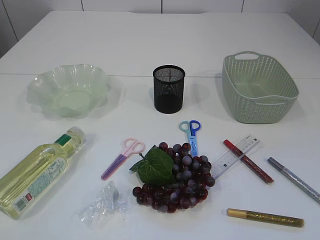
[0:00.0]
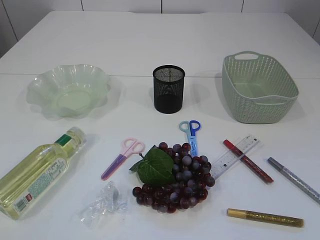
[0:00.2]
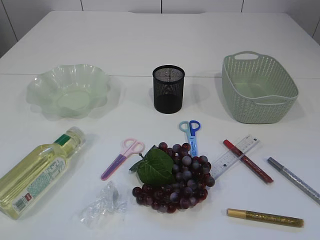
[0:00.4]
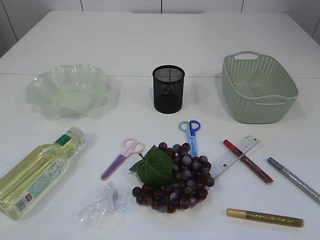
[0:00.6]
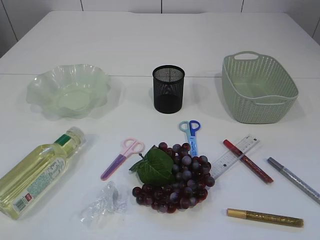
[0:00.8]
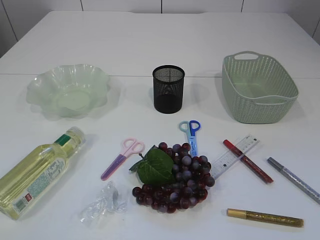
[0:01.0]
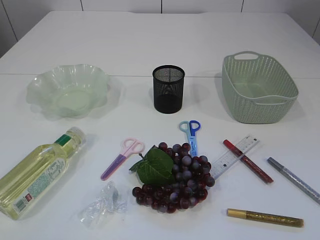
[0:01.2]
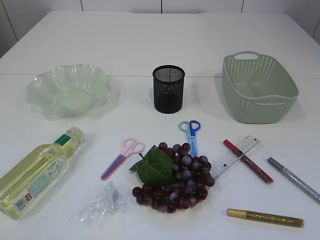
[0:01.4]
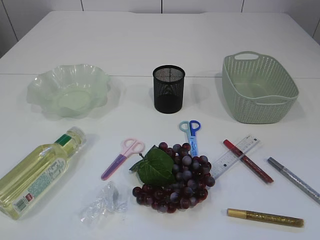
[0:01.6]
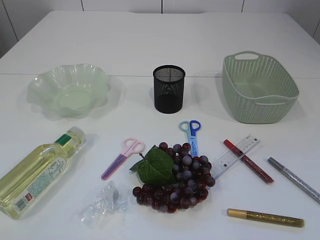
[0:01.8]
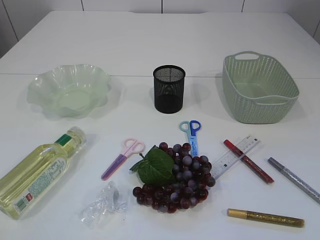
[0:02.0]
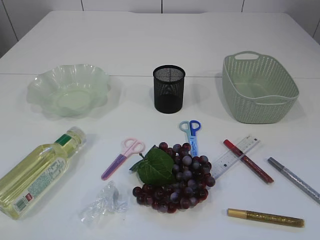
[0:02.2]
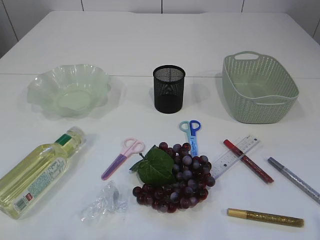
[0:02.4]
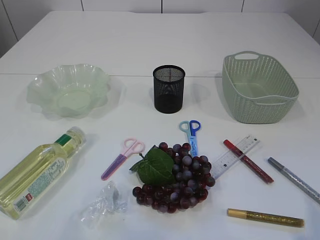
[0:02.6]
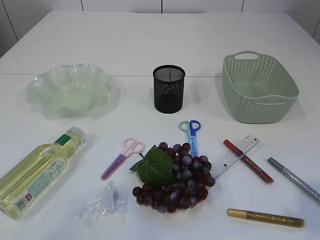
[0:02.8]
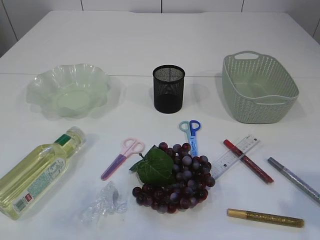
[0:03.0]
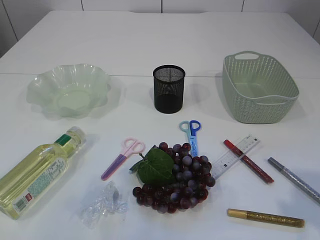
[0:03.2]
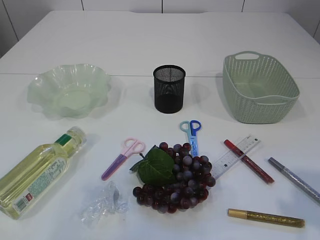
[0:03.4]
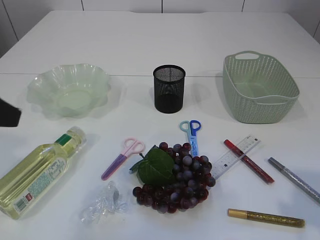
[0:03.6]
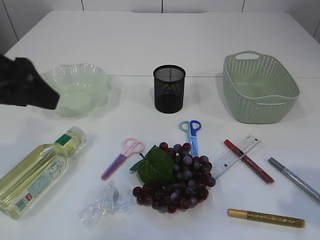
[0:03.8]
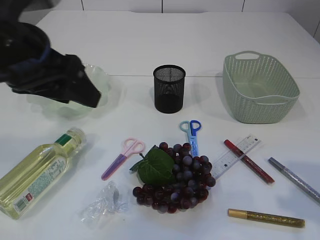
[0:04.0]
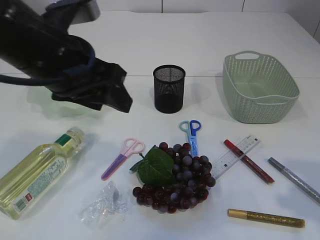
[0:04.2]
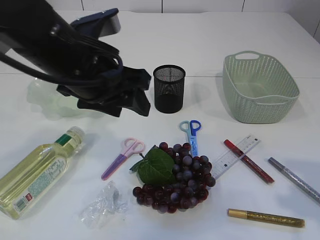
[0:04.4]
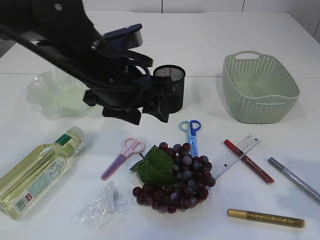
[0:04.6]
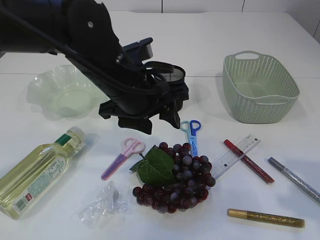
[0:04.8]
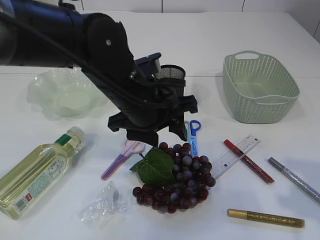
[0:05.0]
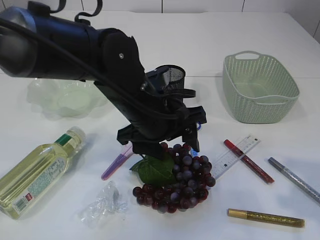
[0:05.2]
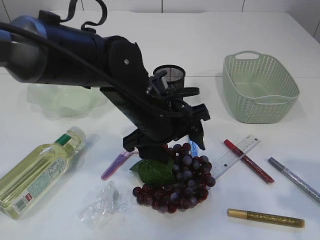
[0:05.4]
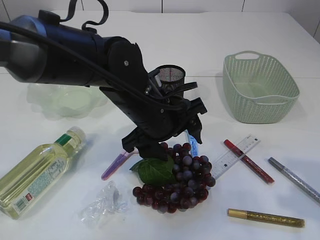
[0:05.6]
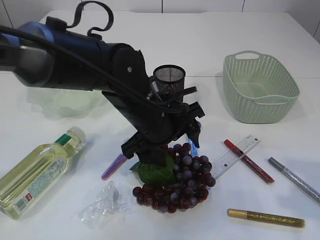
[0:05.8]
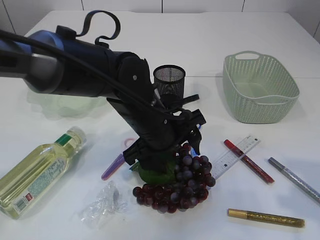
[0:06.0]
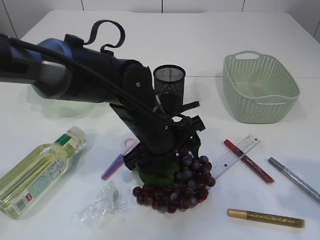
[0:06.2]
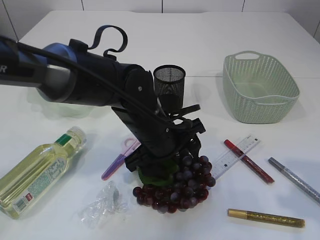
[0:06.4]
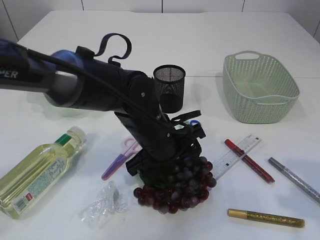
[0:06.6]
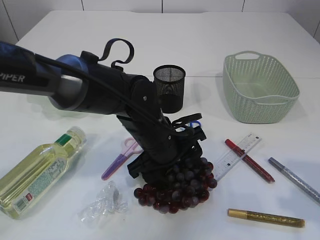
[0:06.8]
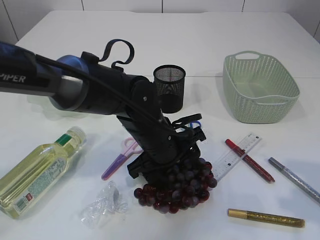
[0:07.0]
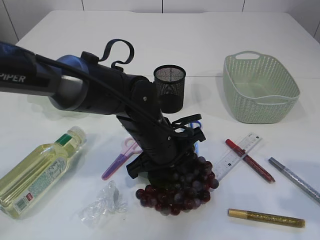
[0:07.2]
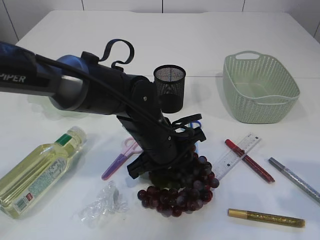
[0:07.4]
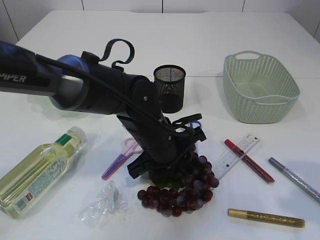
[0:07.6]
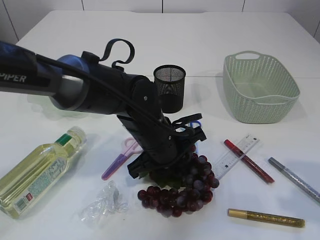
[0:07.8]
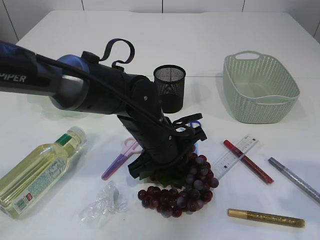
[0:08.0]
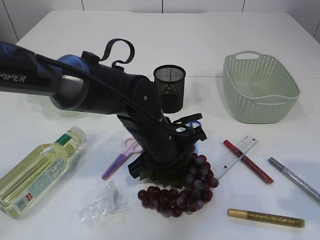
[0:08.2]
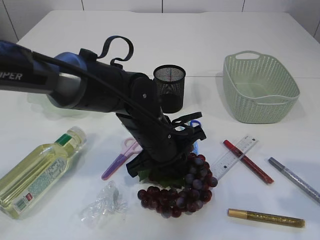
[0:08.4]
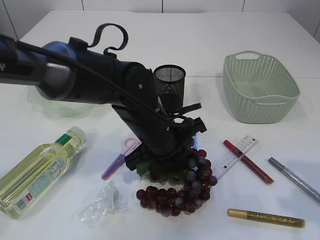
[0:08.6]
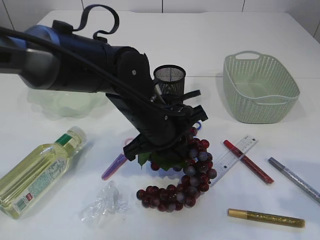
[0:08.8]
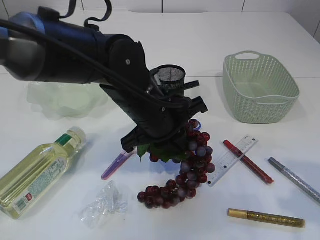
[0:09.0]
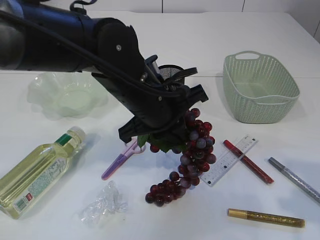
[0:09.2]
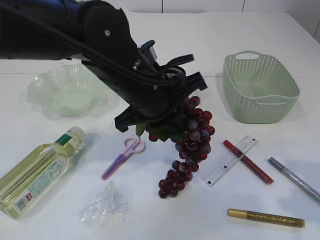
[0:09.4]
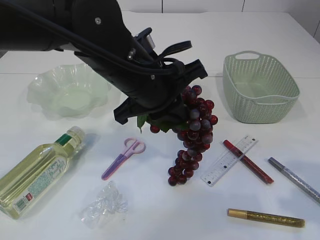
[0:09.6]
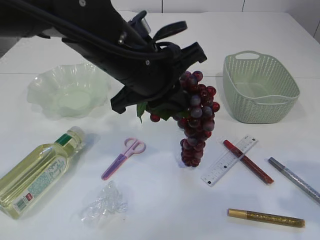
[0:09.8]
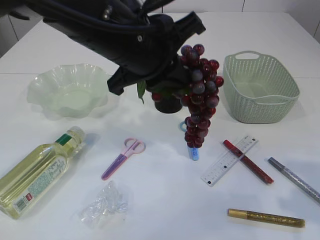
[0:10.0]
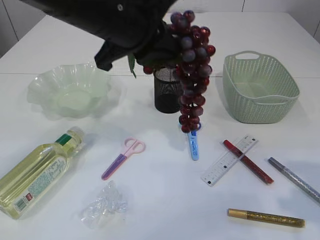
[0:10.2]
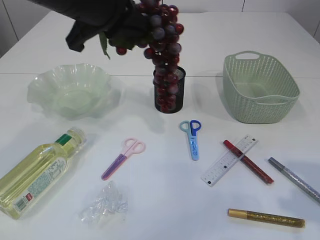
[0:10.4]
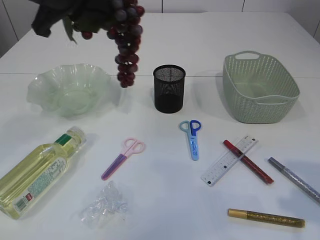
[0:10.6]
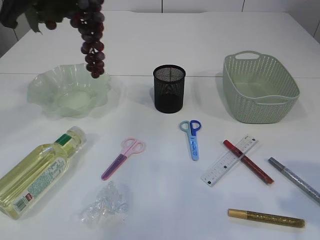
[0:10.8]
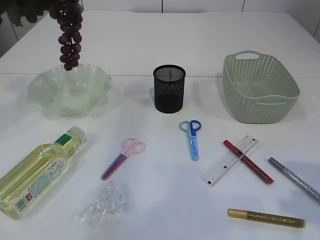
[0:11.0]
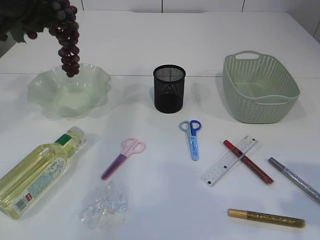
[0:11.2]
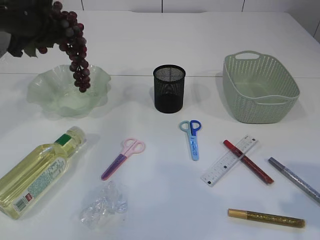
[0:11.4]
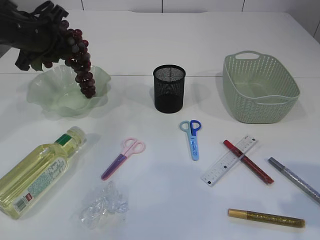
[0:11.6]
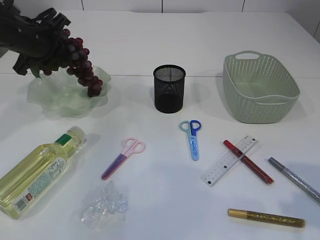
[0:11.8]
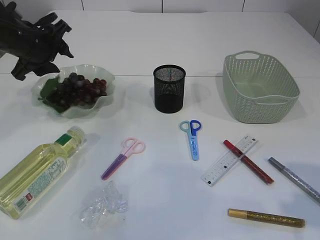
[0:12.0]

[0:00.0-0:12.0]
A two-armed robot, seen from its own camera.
Step, 0:00.0 to 0:10.2: Pick up the grapes.
0:01.6 to 0:03.0: The right gripper moves forward, approximately 10 cm.
0:03.0 to 0:04.4: The left gripper is displaced to the right and forward by about 30 cm.
0:04.4 to 0:06.0: The left gripper heads downward and to the right, covering some 15 cm.
0:06.0 to 0:07.6: The left gripper closes its fingers.
0:07.6 to 0:09.0: The left gripper goes approximately 5 cm upward.
0:09.0 to 0:10.4: The left gripper shifts roughly 15 cm upward and to the left.
0:10.4 to 0:12.0: The left gripper heads to the left, forward and downward, covering roughly 25 cm, and opens its fingers.

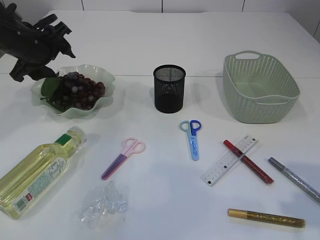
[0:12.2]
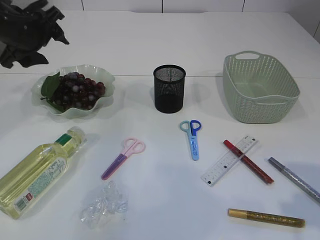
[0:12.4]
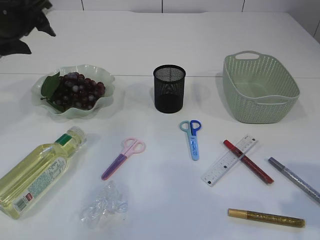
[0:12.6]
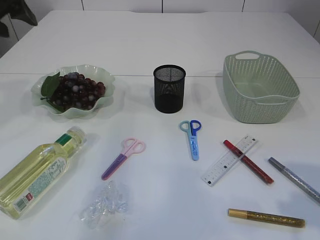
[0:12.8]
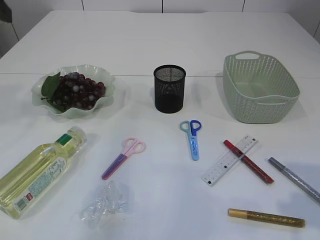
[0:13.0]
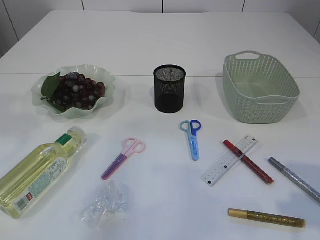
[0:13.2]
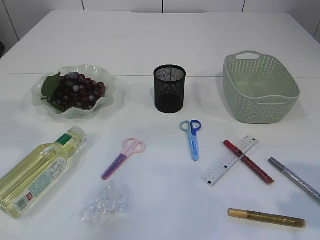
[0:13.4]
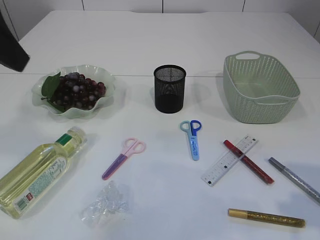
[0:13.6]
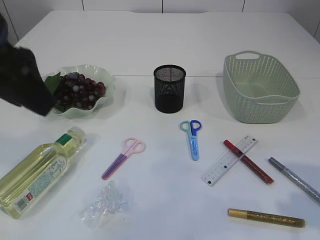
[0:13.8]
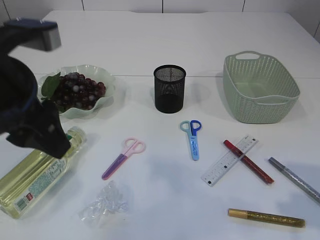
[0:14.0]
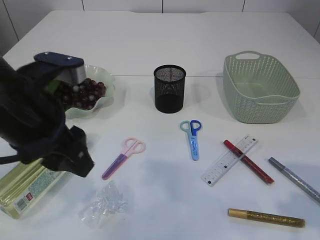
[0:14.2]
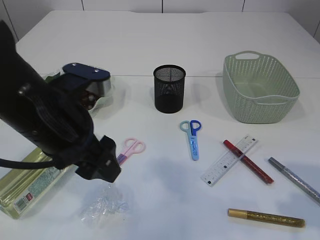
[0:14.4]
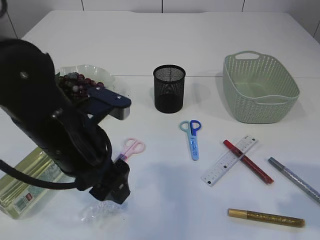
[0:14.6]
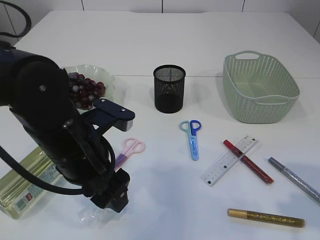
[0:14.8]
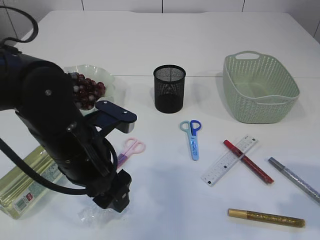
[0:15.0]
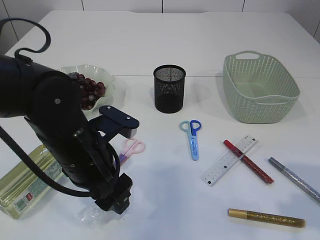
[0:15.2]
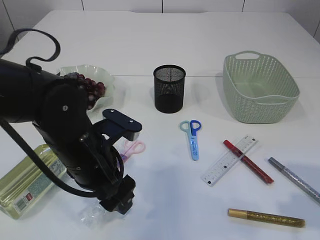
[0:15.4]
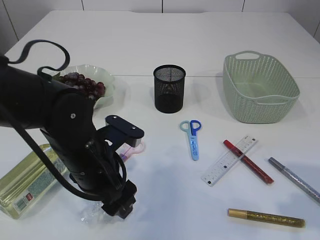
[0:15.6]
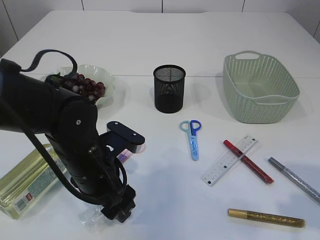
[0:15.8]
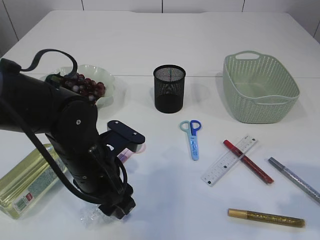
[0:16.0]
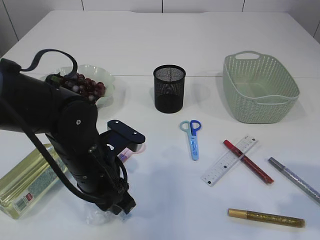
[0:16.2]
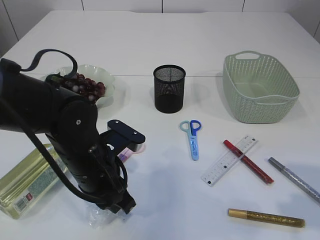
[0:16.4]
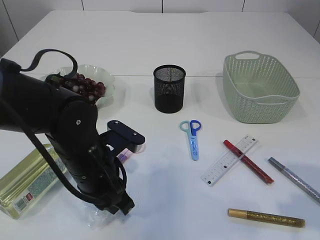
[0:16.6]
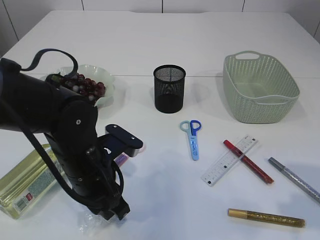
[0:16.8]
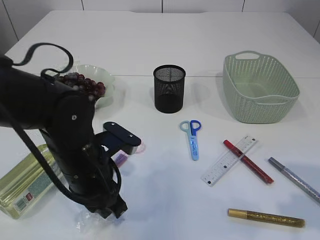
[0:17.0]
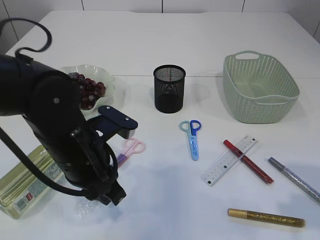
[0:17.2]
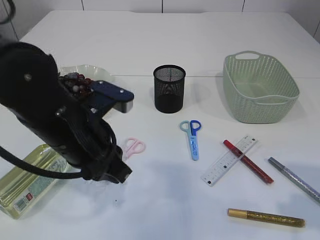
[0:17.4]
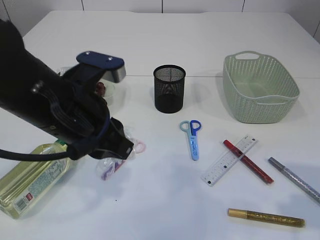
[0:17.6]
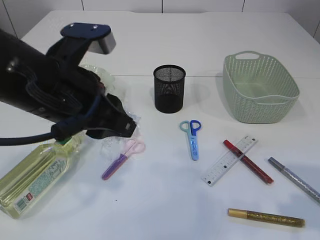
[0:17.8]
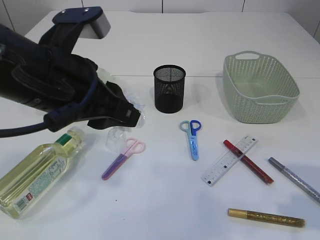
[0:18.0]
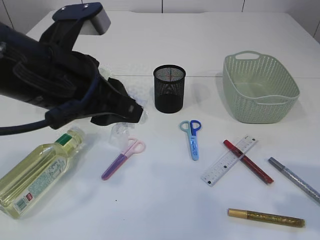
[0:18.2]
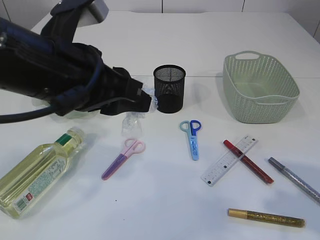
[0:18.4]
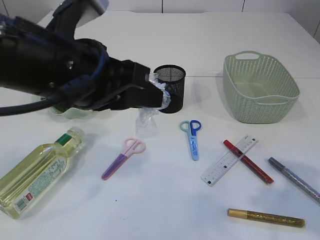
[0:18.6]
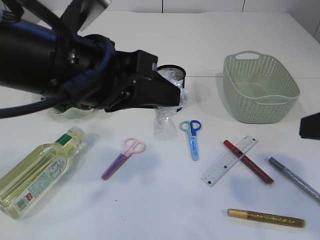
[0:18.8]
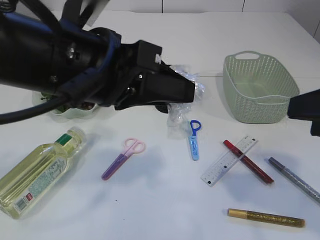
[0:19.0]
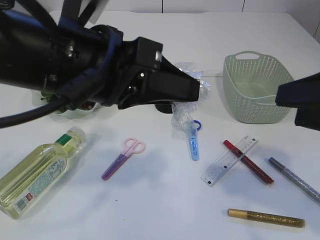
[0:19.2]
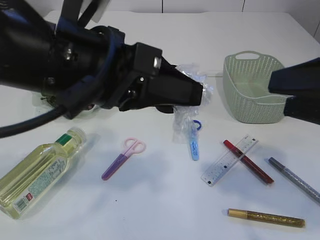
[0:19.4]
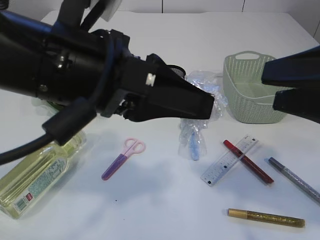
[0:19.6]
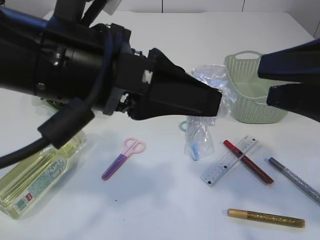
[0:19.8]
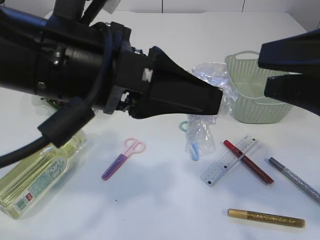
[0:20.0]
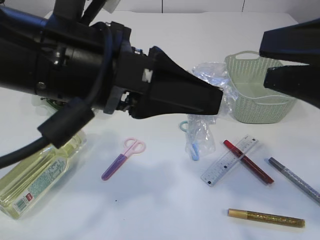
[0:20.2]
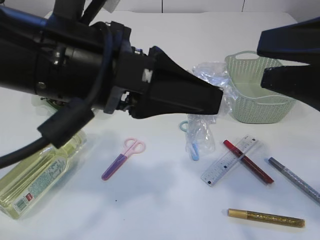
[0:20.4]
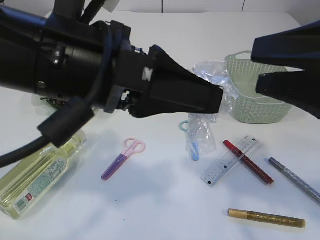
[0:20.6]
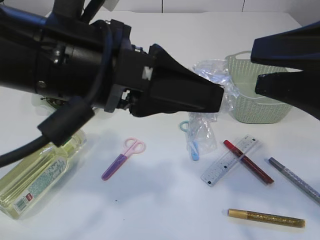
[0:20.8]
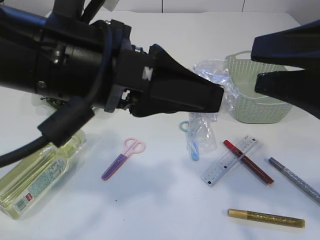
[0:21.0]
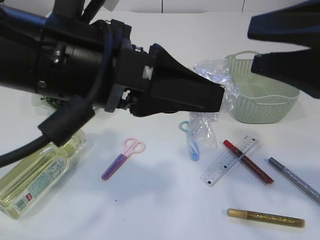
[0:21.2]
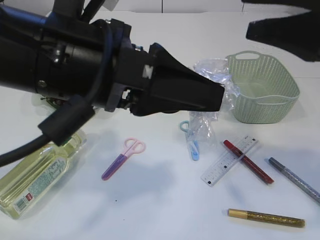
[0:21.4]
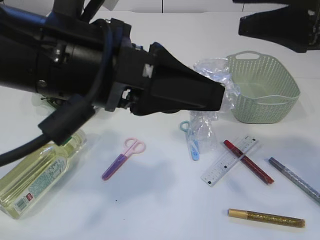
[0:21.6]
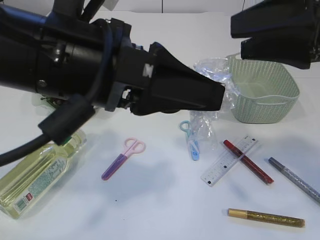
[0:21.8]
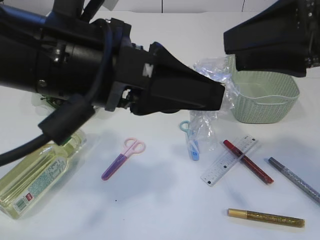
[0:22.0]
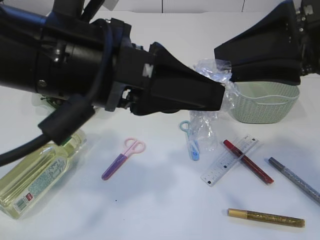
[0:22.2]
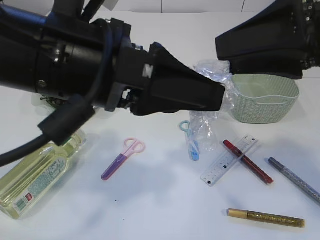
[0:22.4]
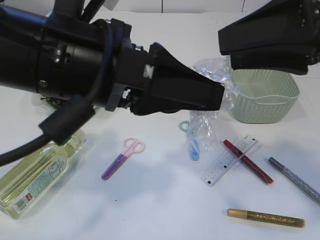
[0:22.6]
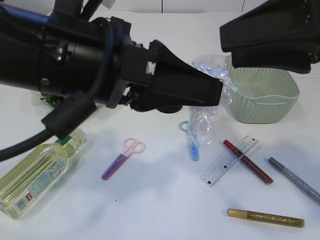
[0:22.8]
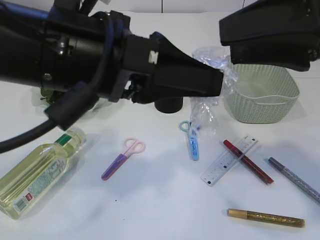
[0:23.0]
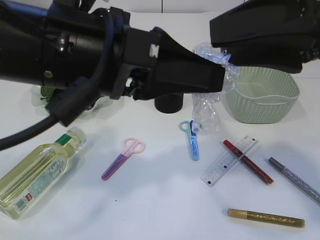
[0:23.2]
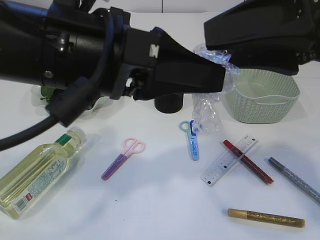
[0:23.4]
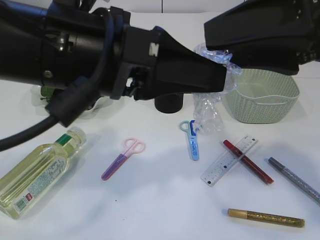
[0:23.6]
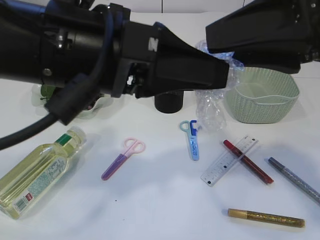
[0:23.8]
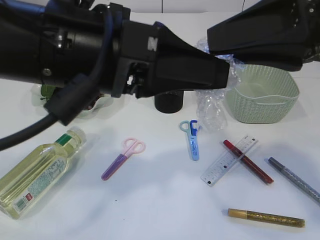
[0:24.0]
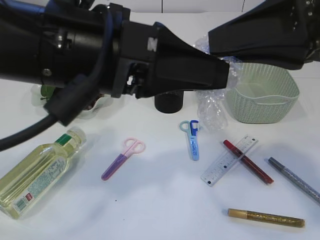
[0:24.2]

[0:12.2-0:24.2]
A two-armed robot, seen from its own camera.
Step, 0:12.6 to 0:17.4: Pick up the plastic.
0:12.2 to 0:13.8: The left gripper goes some 25 cm backward and upward.
0:13.8 to 0:15.2: The left gripper goes about 20 cm downward and to the right, and opens up.
0:15.2 to 0:16.6: The left gripper closes up.
0:16.6 to 0:18.2: The left gripper goes roughly 15 cm upward.
0:18.2 to 0:19.8: The left gripper shifts by some 5 cm; the right gripper moves to the left, approximately 5 cm.
0:19.8 to 0:21.2: The grippers move only a little.
0:22.6 to 0:24.2: The right gripper closes up.
